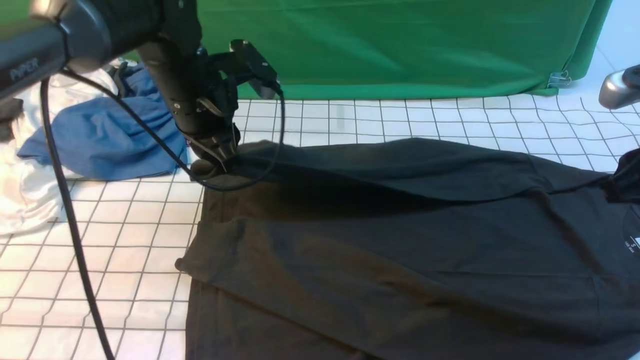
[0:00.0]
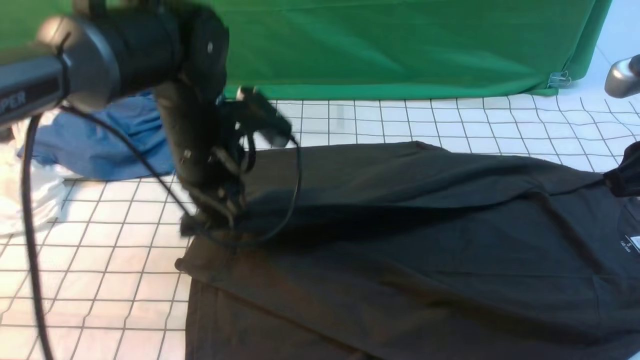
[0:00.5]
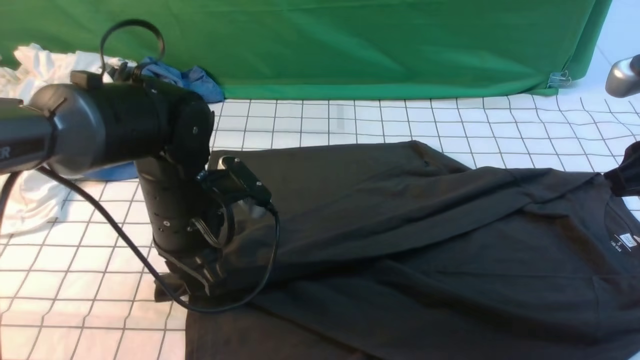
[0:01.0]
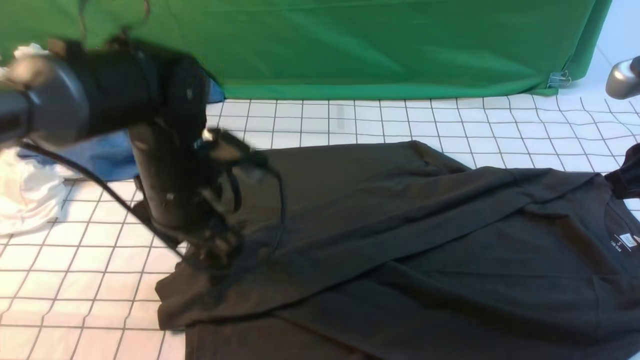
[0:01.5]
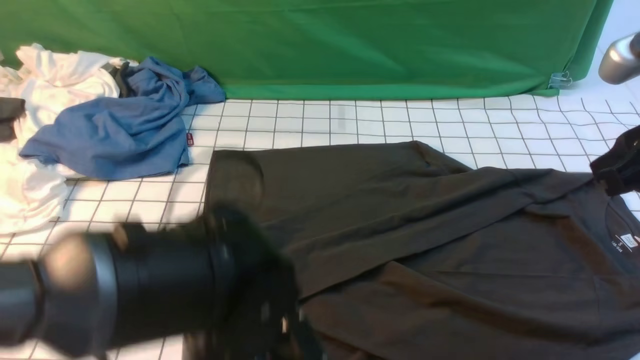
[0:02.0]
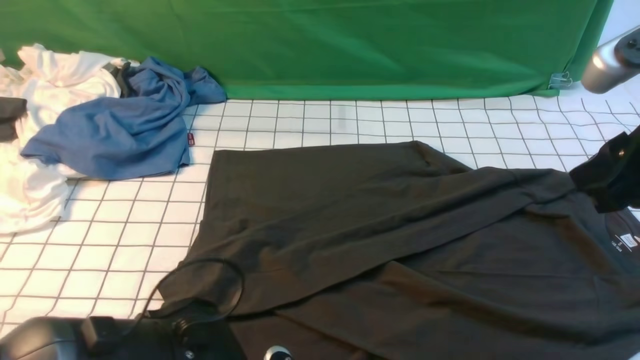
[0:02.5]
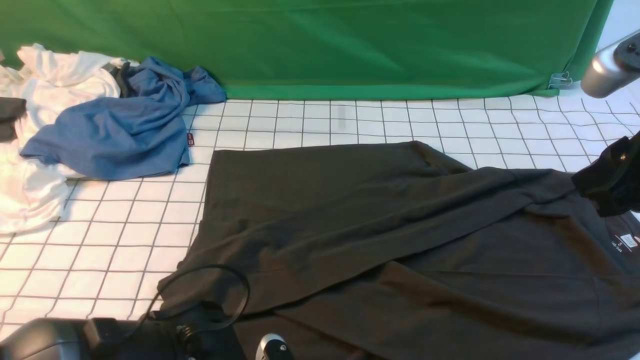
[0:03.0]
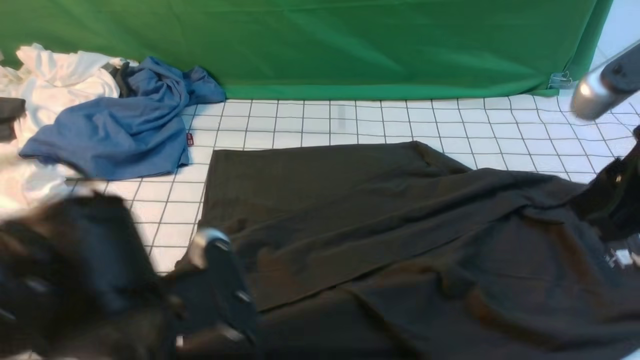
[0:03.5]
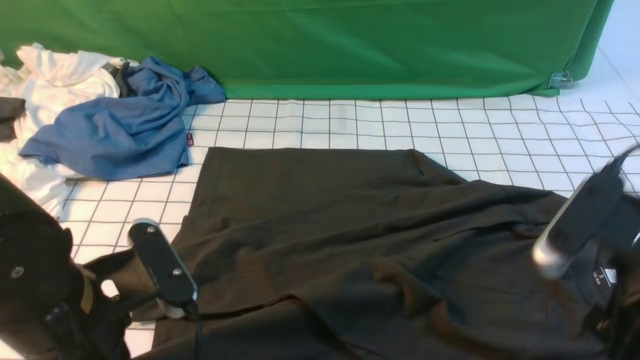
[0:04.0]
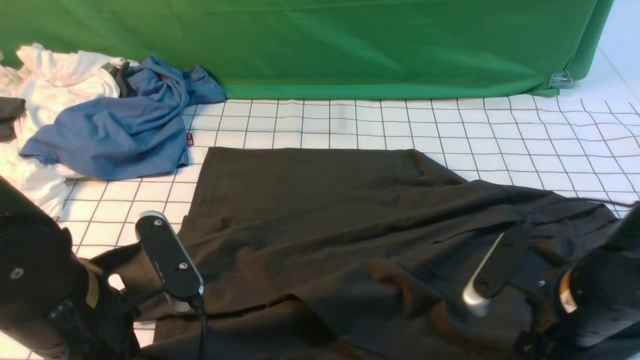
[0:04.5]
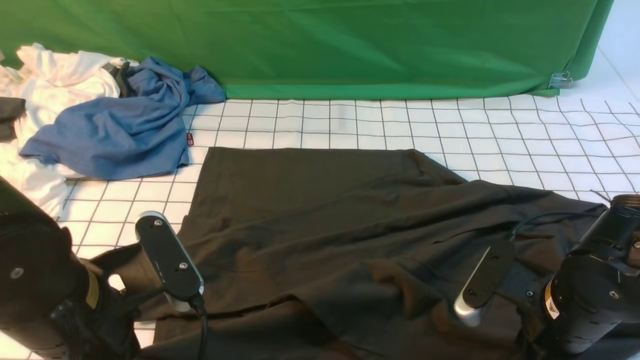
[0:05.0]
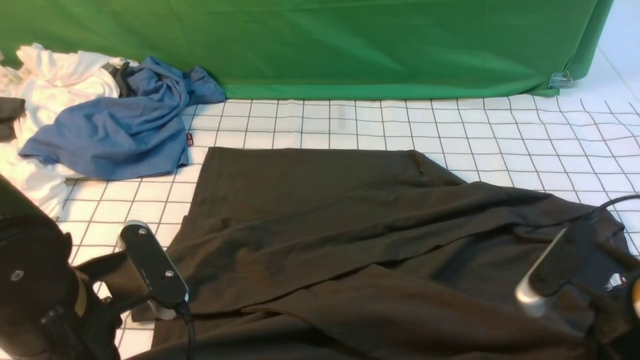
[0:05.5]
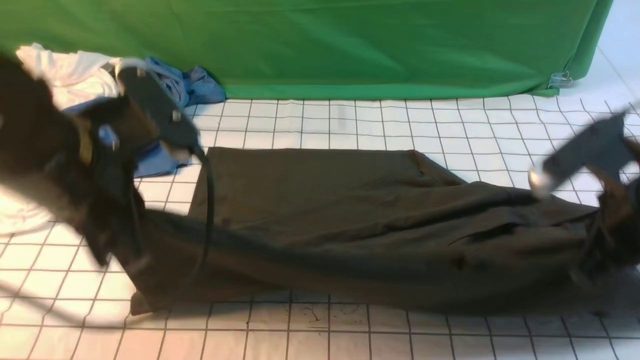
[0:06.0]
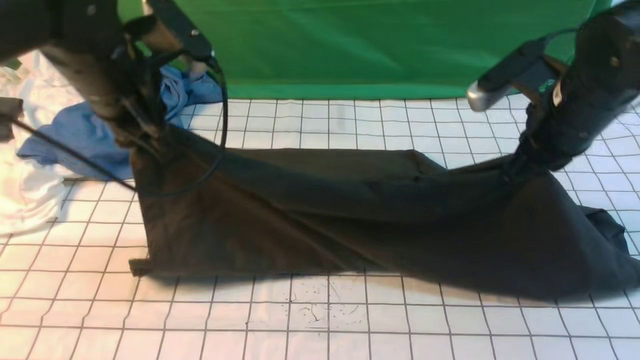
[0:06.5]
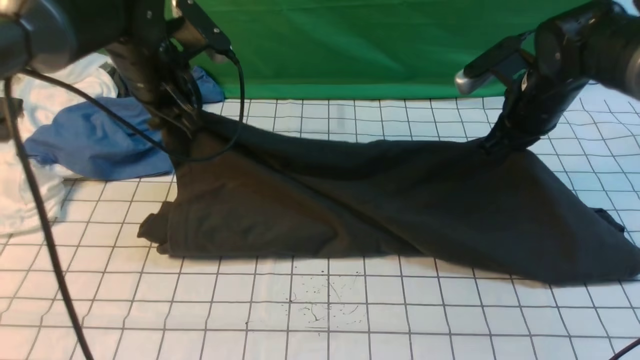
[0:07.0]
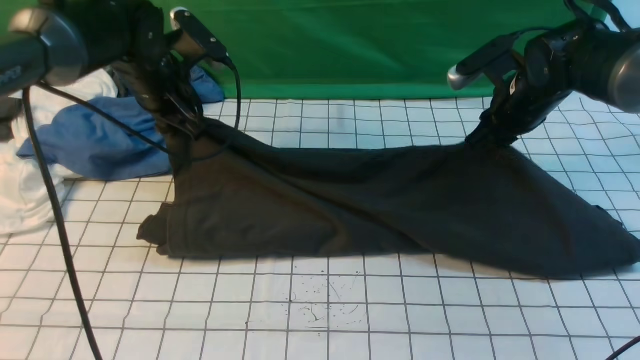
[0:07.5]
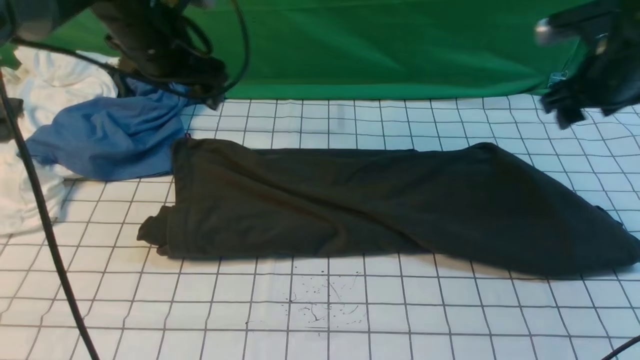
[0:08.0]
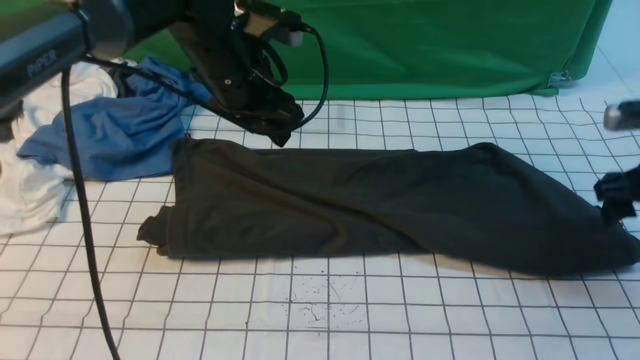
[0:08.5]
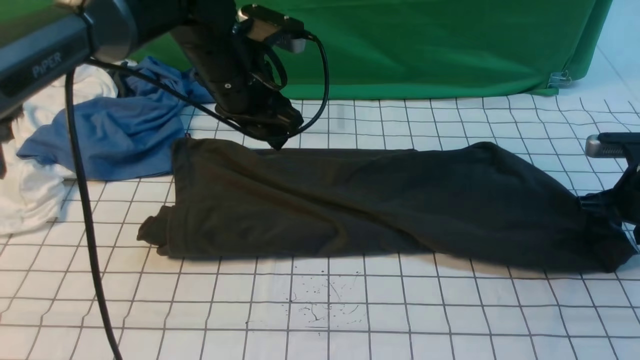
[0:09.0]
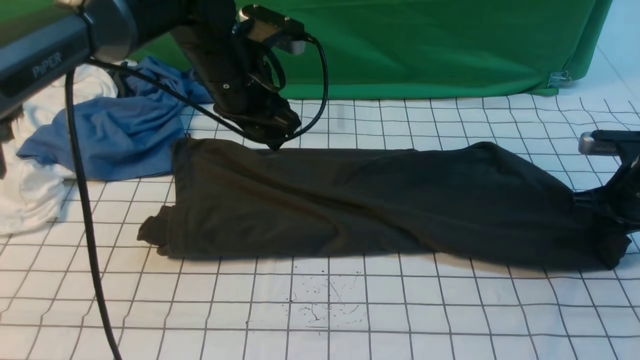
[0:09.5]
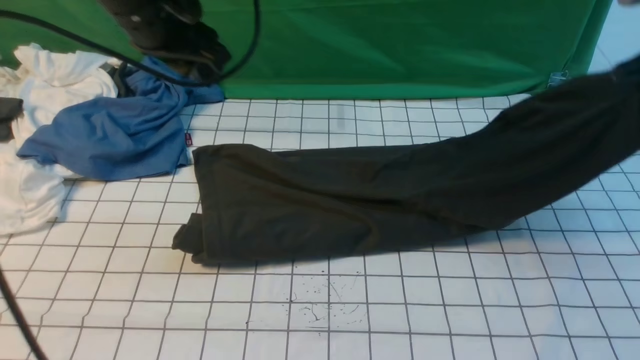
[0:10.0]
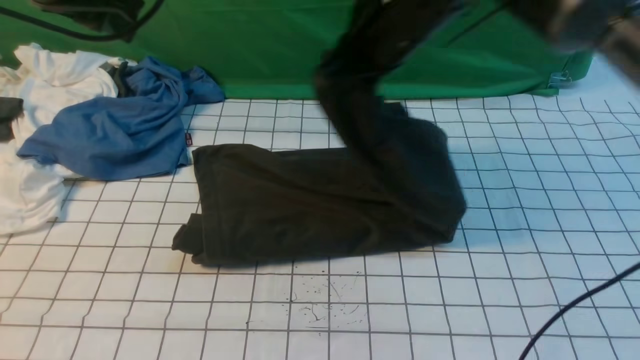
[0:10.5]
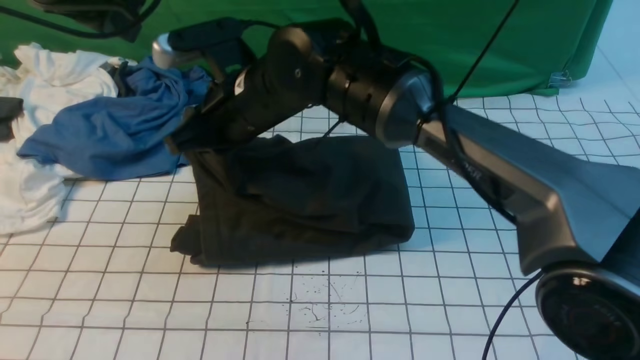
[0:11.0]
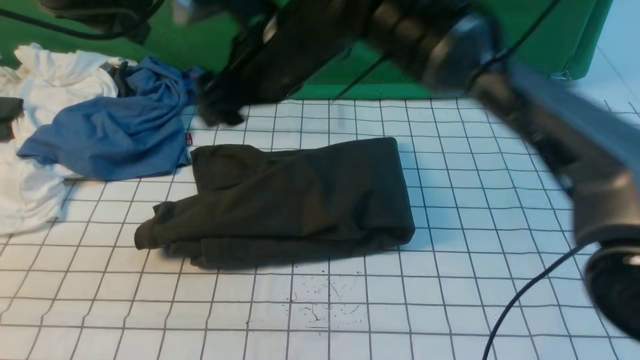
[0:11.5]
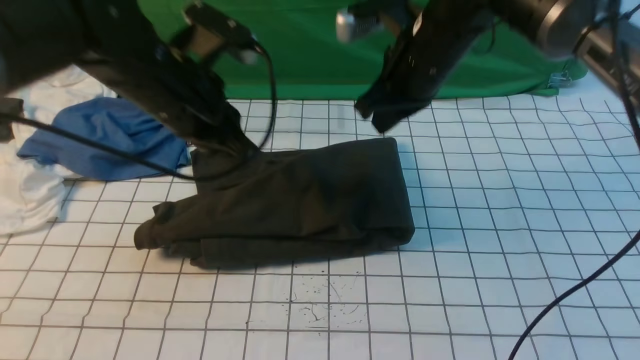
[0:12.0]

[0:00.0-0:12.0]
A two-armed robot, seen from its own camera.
Step, 0:00.0 to 0:01.0: use the left arm to drag and drop the cuff onto the cuff closest to the left arm.
Step, 0:02.0 to 0:05.5: use both arms simultaneously to clamp the lower edge of the clothing fabric.
Step, 0:06.0 to 0:07.5: use both arms to drag the lower edge of the fabric forward and fold it over the upper edge.
Step, 0:08.0 to 0:09.5: use the right arm to clamp the right edge of the fabric.
Step, 0:10.0 to 0:11.0: use the right arm to drag the right edge of the fabric to the left and folds it over the left edge.
0:00.0 to 0:02.0: The left gripper travels backward by roughly 25 cm, and opens up. The right gripper changes place by approximately 5 cm.
0:02.0 to 0:04.0: The left gripper goes roughly 15 cm to the left and upward, and closes its fingers, while the right gripper heads downward and backward, covering some 10 cm, and opens up.
0:04.0 to 0:06.0: The right gripper is displaced forward by roughly 5 cm, moves about 10 cm downward and comes back, and closes. The left gripper is displaced upward and forward by approximately 10 cm.
0:06.0 to 0:08.0: The right gripper is displaced forward and to the right by some 20 cm, and opens its fingers; the left gripper moves forward, approximately 20 cm, and opens its fingers.
0:08.0 to 0:10.0: The grippers both shift upward by some 5 cm. The right gripper closes its fingers; the left gripper closes.
0:10.0 to 0:12.0: The left gripper heads downward, covering about 10 cm, and closes its fingers; the right gripper is displaced to the left by some 20 cm, and opens, then closes again.

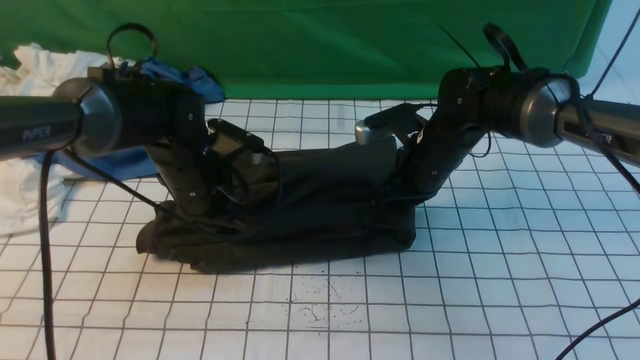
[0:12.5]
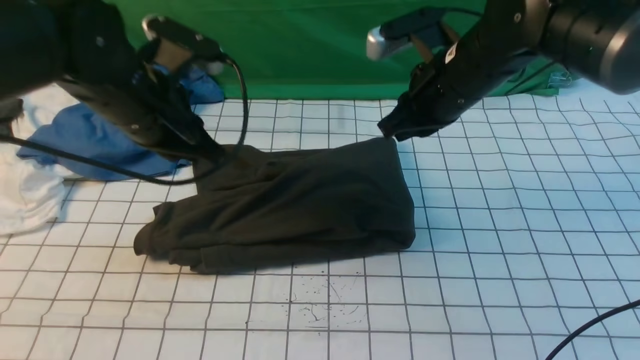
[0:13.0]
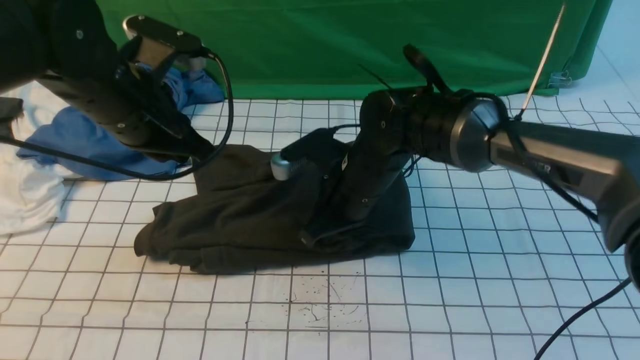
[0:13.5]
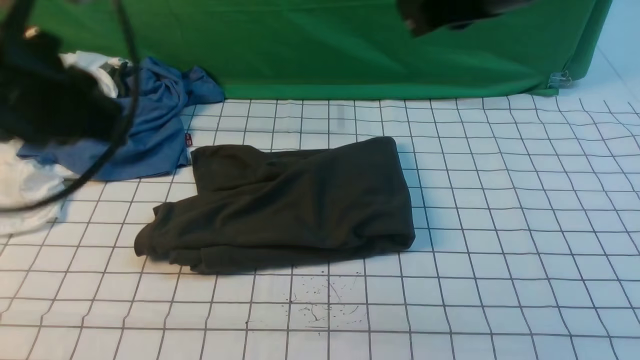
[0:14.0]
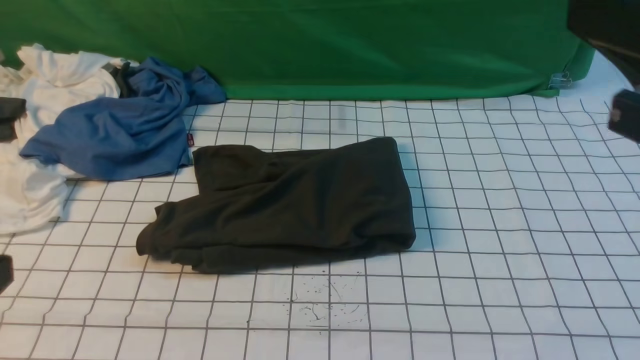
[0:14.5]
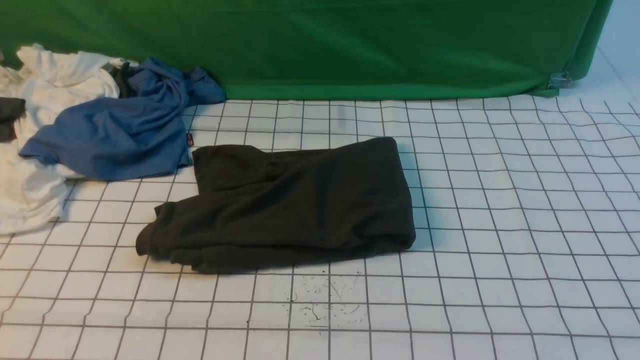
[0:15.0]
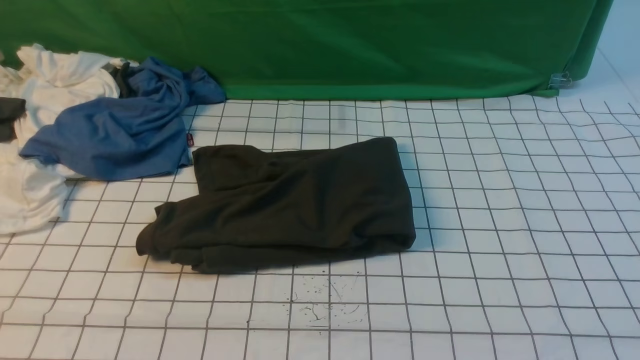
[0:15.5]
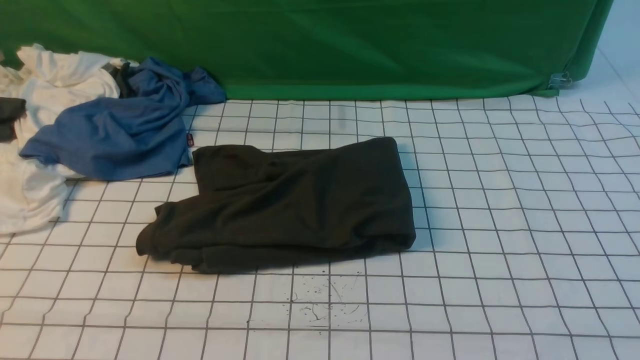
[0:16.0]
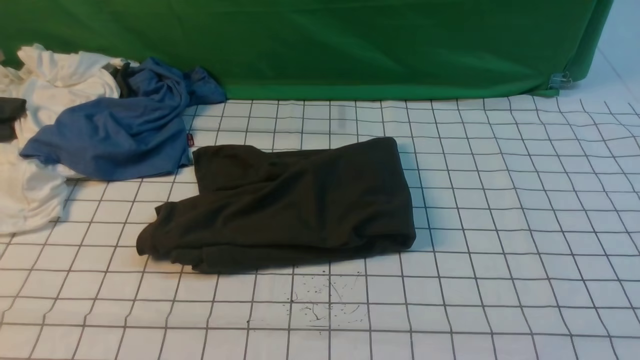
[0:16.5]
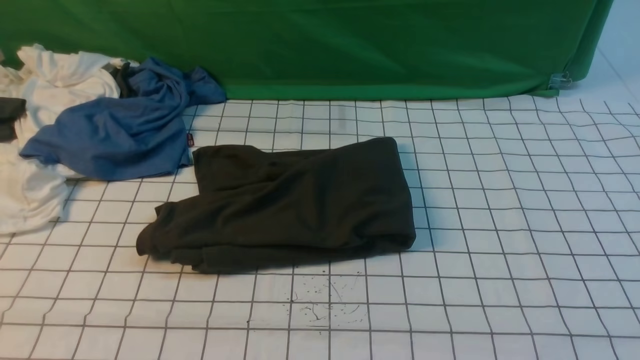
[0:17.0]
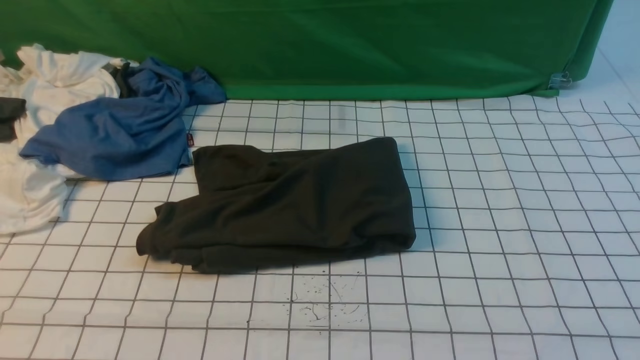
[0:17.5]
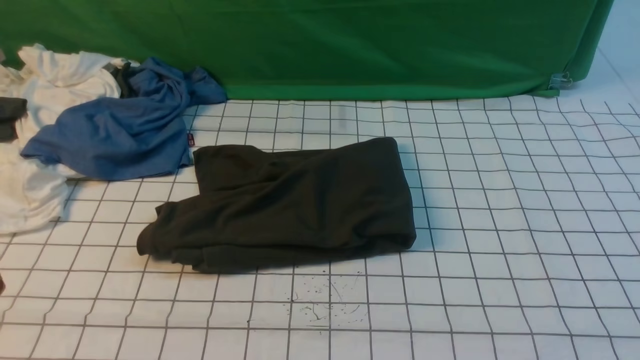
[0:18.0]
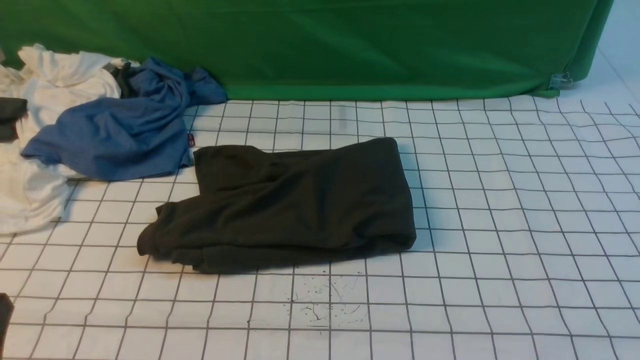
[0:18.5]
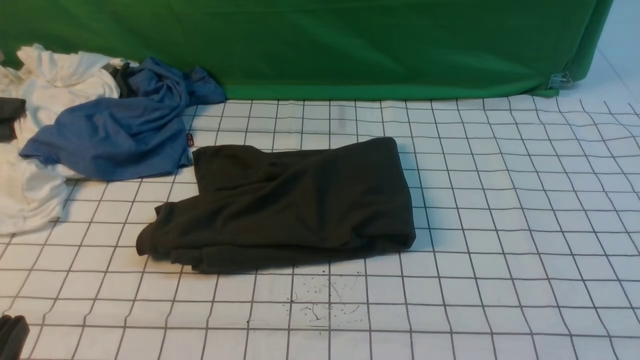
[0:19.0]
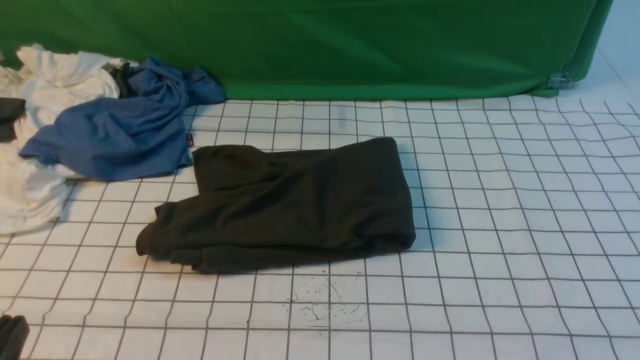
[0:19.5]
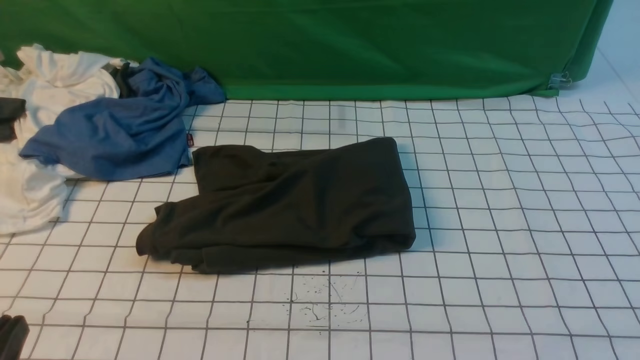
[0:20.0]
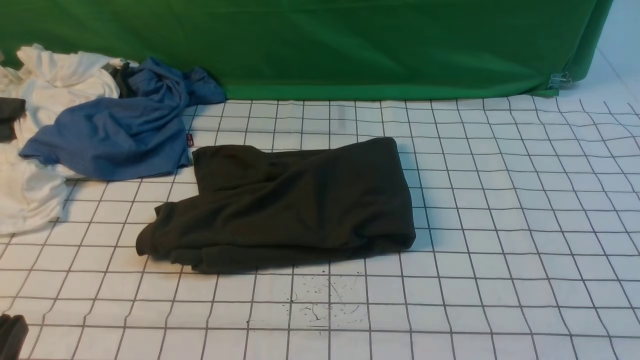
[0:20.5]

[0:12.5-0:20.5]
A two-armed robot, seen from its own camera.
0:12.5 to 0:14.5: The right gripper travels backward, upward and to the right by about 35 cm, while the left gripper goes approximately 35 cm backward and upward.
0:14.5 to 0:16.5: The right gripper shifts roughly 25 cm downward, backward and to the right.
